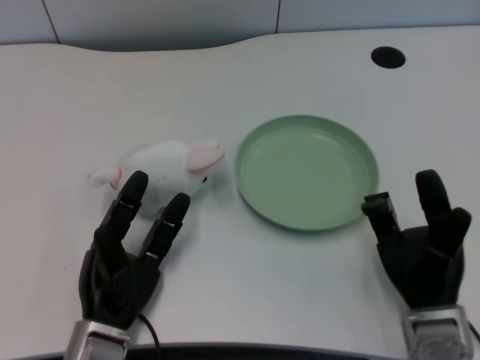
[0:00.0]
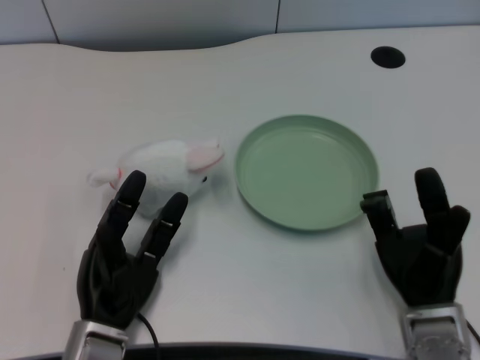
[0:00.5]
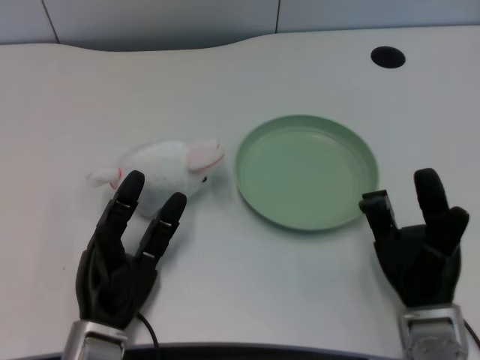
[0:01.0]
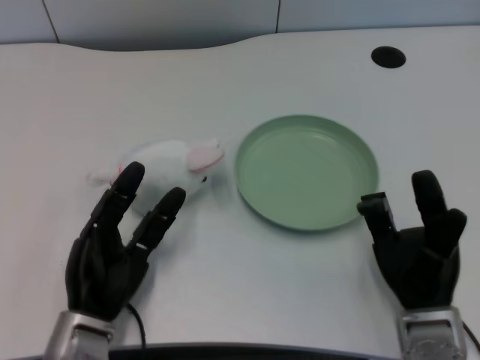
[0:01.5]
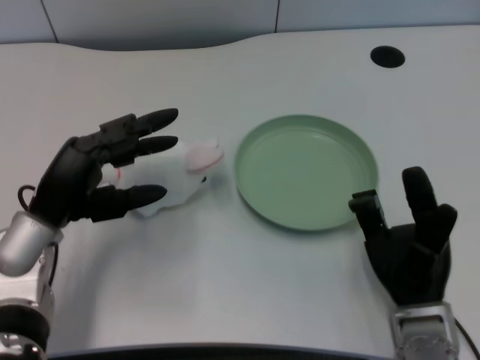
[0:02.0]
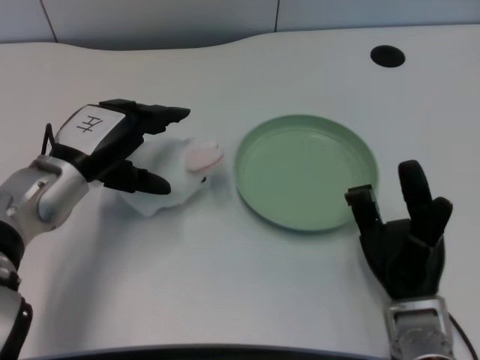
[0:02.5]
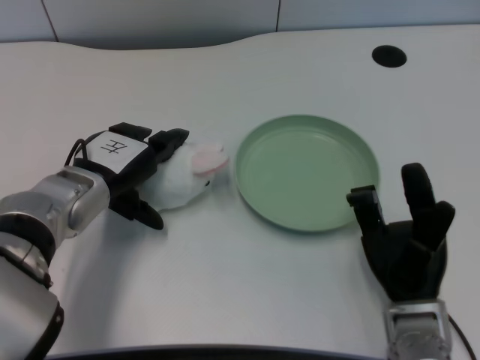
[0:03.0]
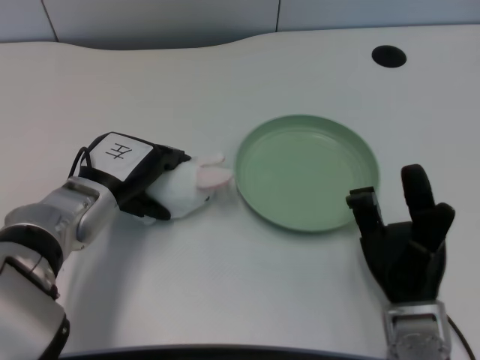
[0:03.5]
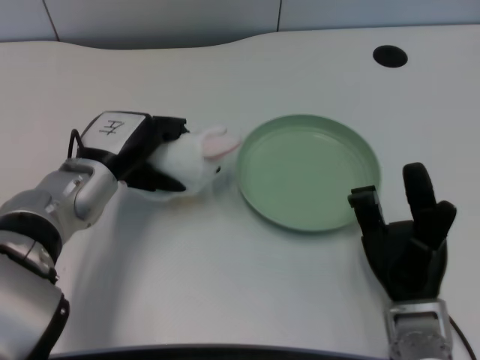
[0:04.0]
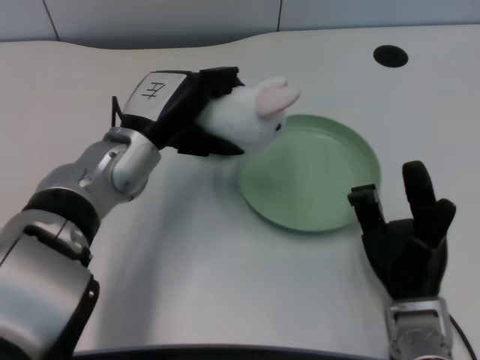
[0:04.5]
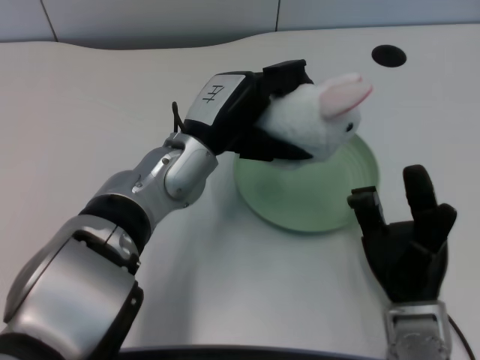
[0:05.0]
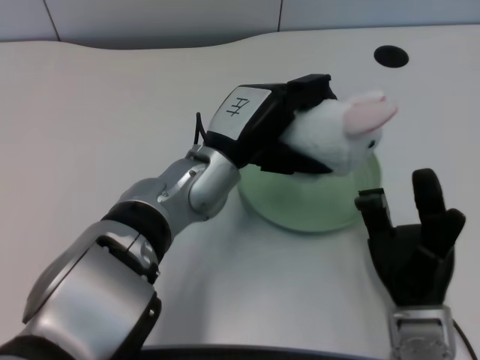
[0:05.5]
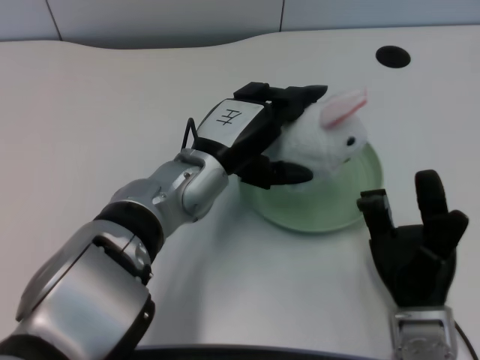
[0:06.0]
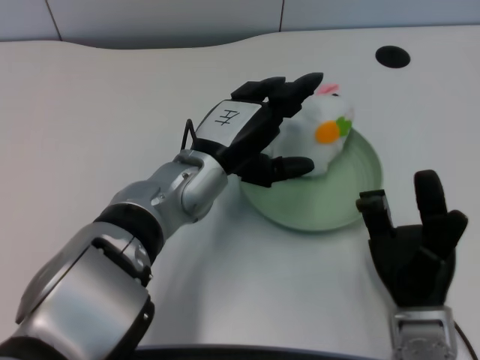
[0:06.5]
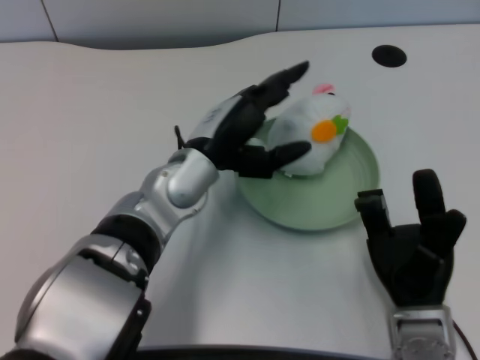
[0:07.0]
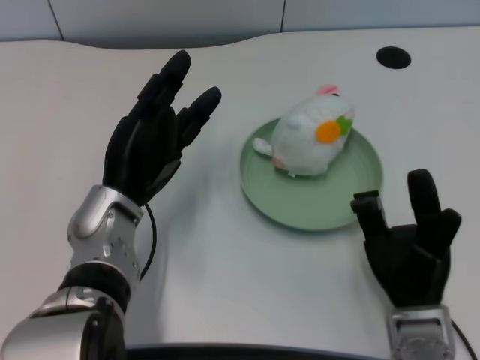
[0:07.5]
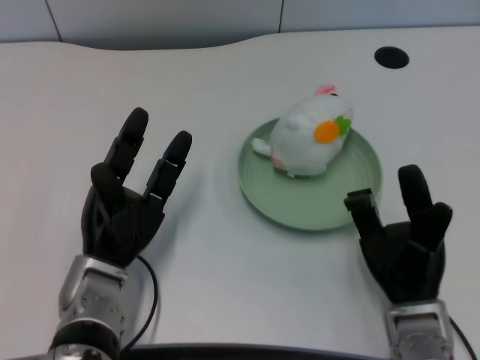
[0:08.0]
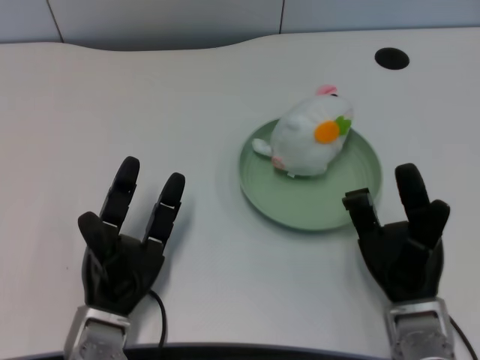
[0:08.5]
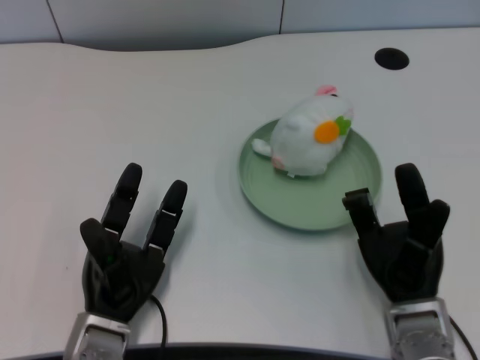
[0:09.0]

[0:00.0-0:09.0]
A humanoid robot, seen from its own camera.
Task of the whole recording: pick up the rabbit doll from the table and place it on the plate.
Step, 0:02.0 to 0:03.5: Grasp the rabbit doll with the left gripper.
Step, 0:04.0 to 0:06.0: Place the rabbit doll into the plate with the left gripper.
0:02.0 to 0:04.5: The left hand travels to the right and forward by approximately 10 cm.
0:04.5 to 0:07.0: The left hand shifts about 5 cm to the right.
0:07.0 to 0:09.0: The left hand shifts about 20 cm downward, backward and to the left.

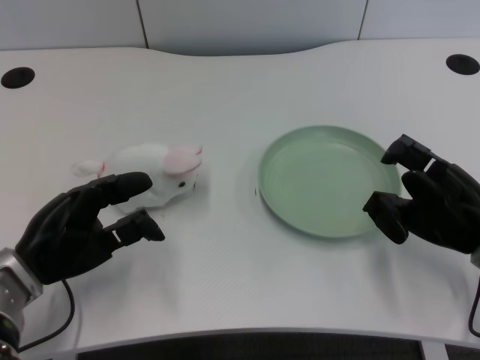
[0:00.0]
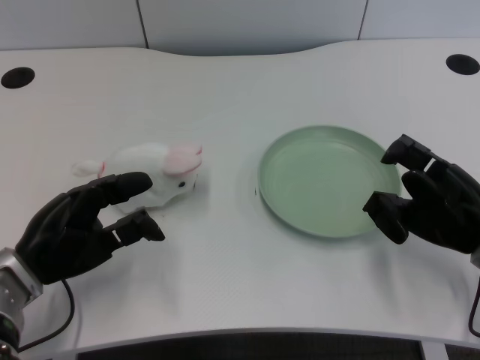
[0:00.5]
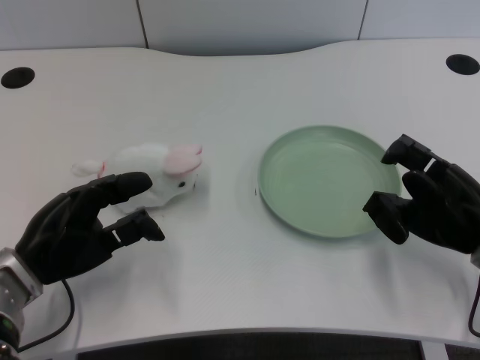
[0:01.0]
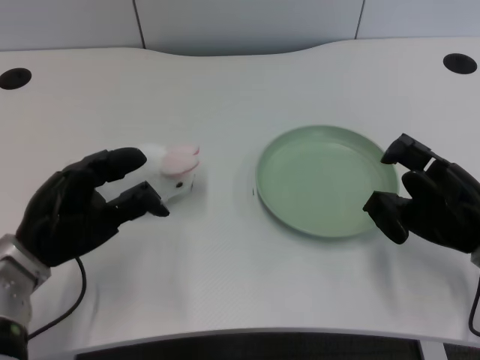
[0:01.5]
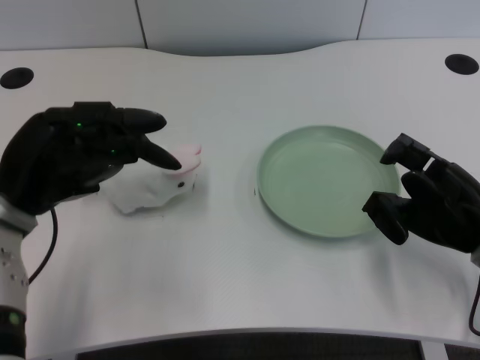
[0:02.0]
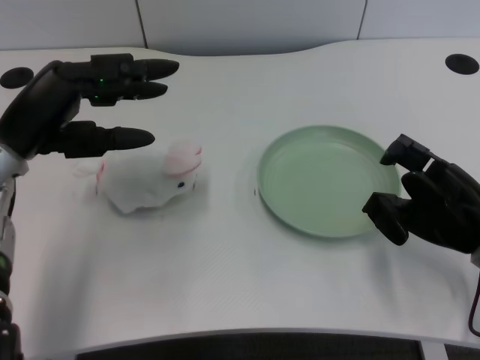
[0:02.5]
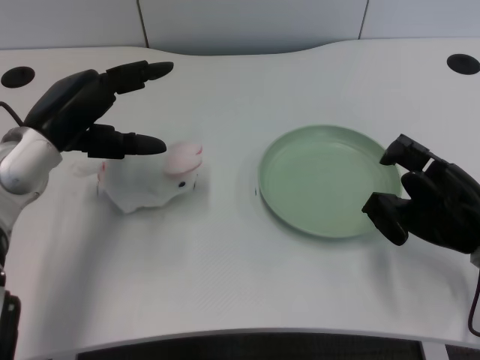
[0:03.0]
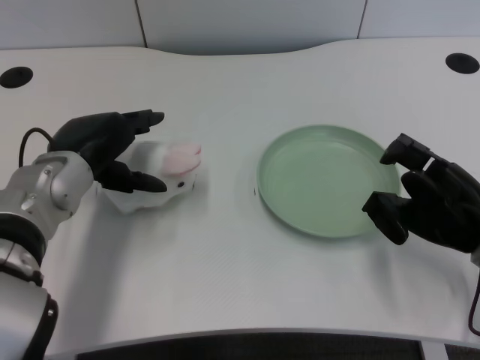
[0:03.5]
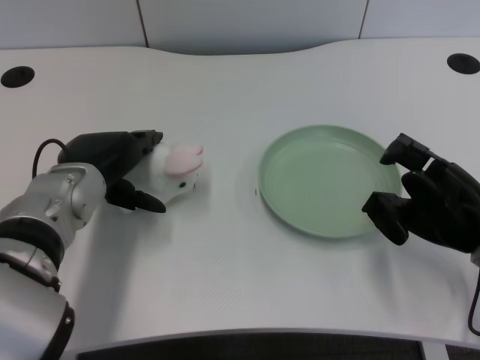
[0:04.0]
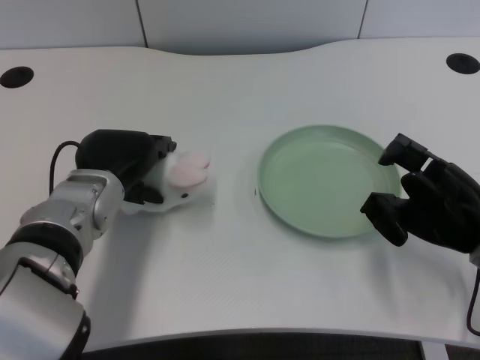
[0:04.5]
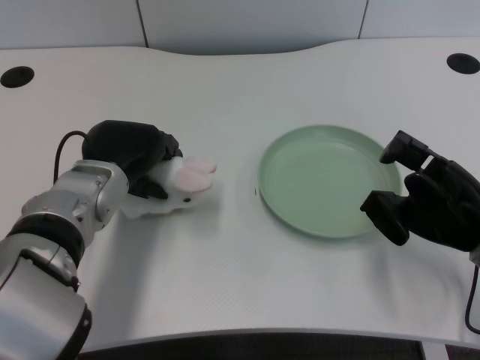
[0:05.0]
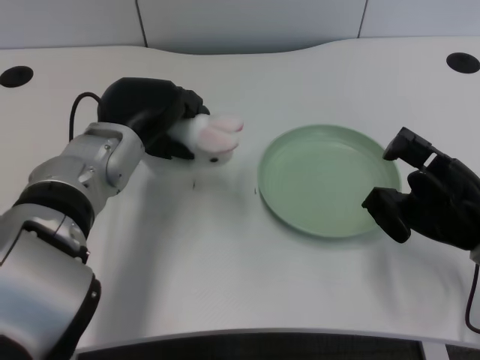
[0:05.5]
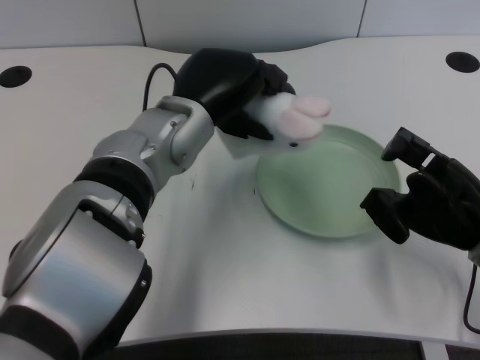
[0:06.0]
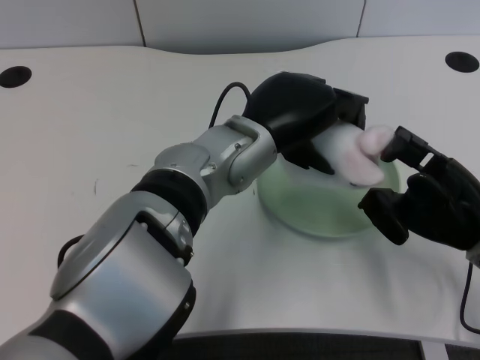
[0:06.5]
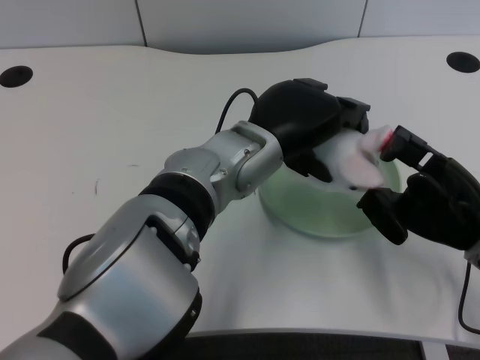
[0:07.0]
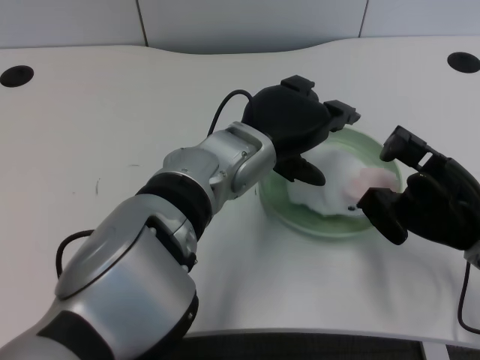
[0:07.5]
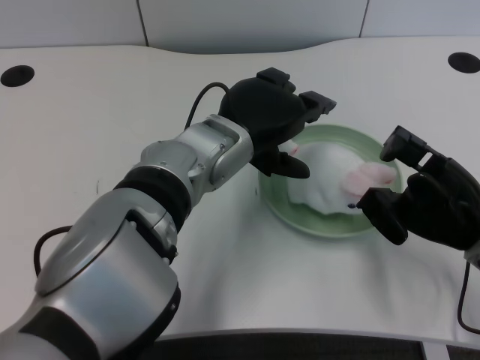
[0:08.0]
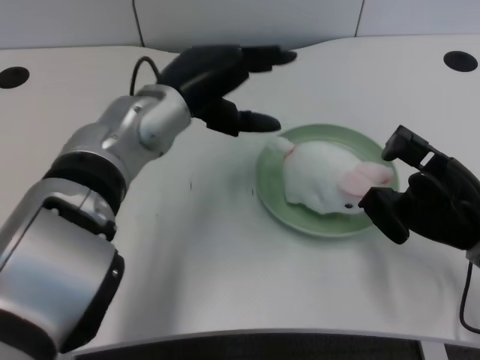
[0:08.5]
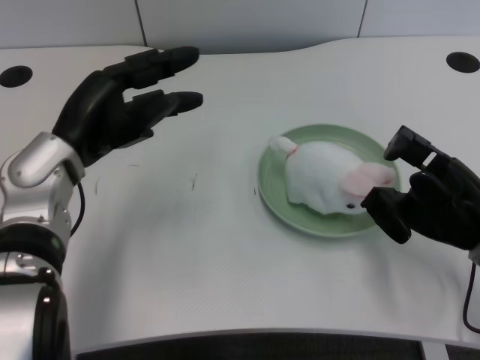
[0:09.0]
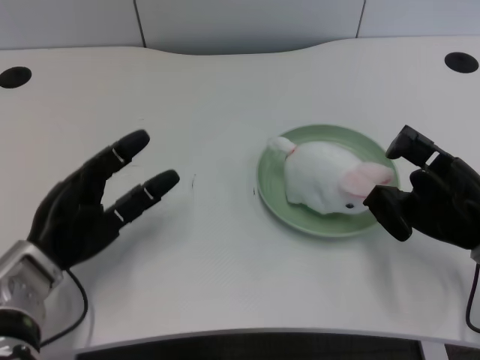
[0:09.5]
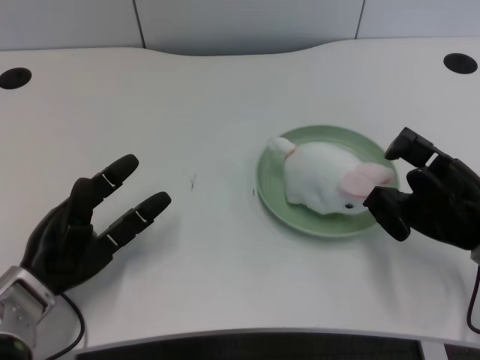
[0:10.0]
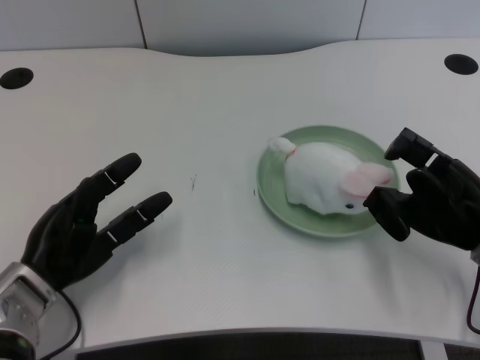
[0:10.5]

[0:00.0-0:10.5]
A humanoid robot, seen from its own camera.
Task of the whole recording: pick up the rabbit doll from the table and place it on the plate.
Step, 0:02.0 to 0:05.0: Grasp the rabbit doll with the left gripper.
Step, 0:05.5 to 0:07.0: Place the rabbit doll into the plate with the left gripper.
0:02.0 to 0:04.0: The left hand goes some 5 cm to the right.
0:04.0 to 0:06.5: The left hand is displaced to the right by about 15 cm.
0:06.5 to 0:08.5: The left hand moves to the left, some 10 cm.
0:08.5 to 0:10.5: The left hand shifts roughly 25 cm downward, to the left and backward.
